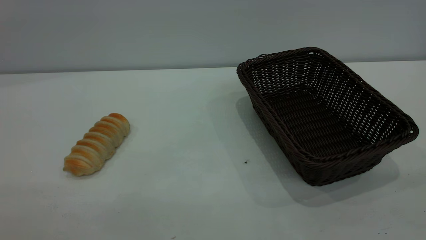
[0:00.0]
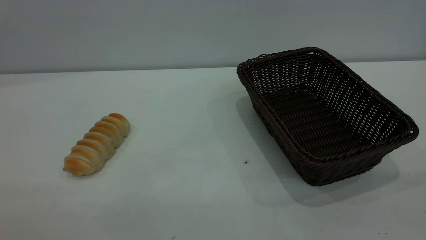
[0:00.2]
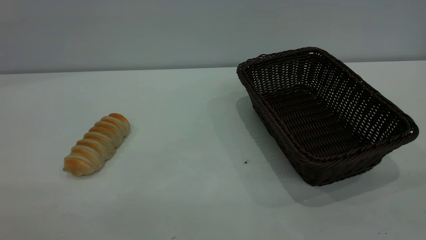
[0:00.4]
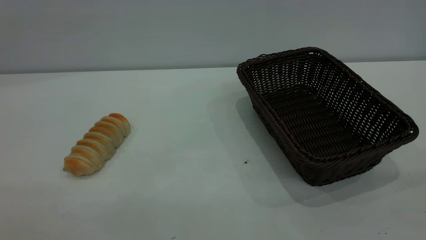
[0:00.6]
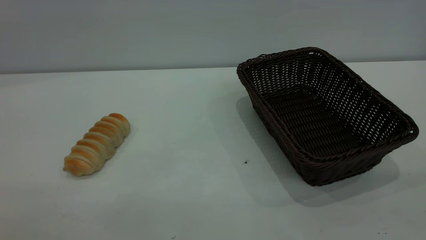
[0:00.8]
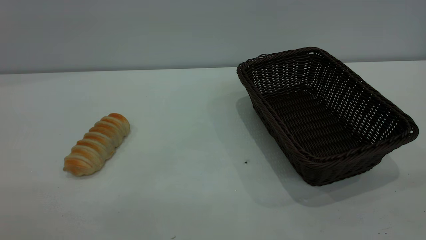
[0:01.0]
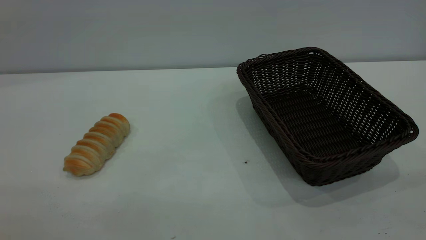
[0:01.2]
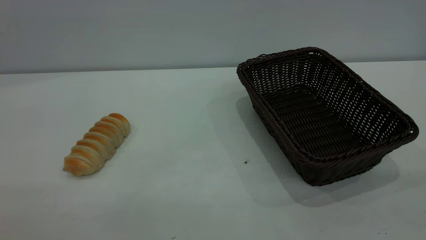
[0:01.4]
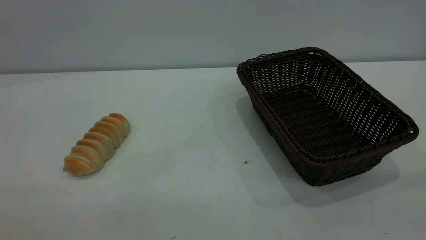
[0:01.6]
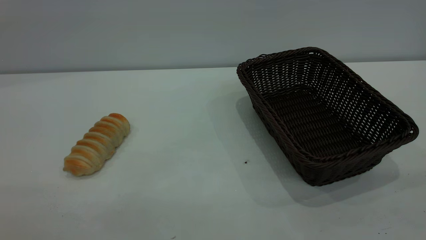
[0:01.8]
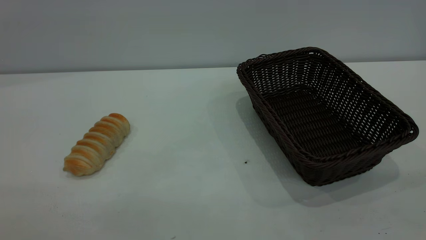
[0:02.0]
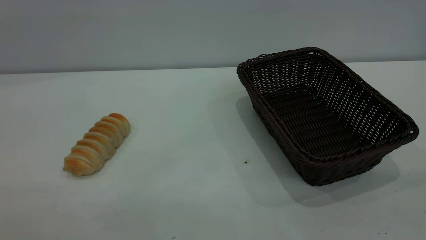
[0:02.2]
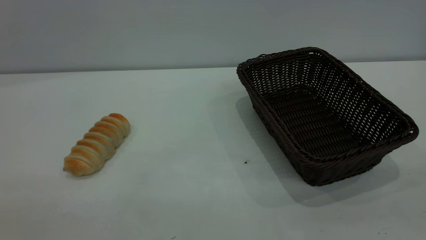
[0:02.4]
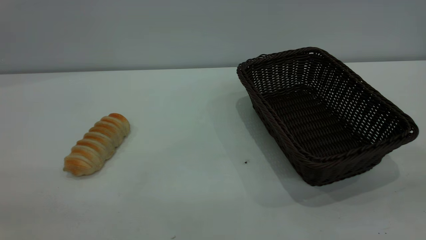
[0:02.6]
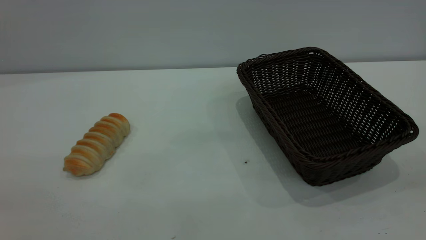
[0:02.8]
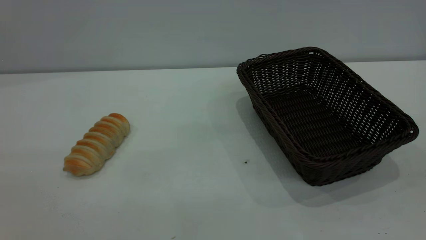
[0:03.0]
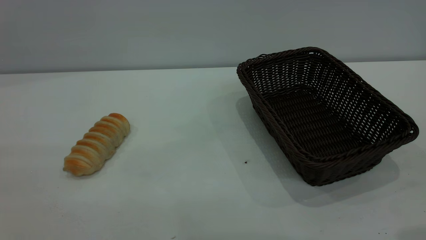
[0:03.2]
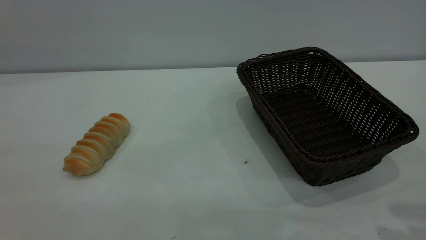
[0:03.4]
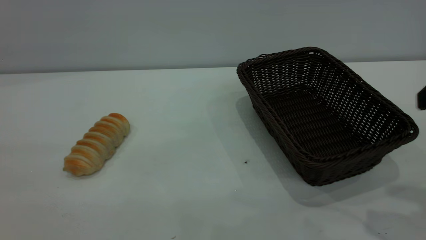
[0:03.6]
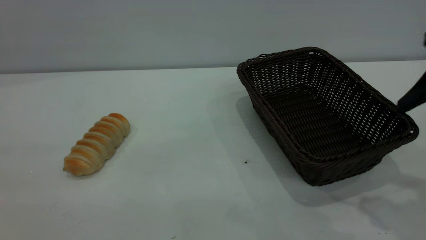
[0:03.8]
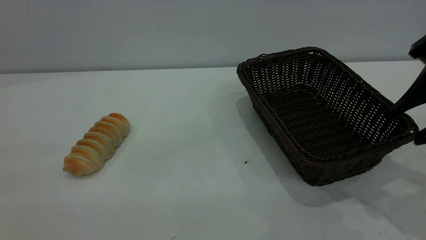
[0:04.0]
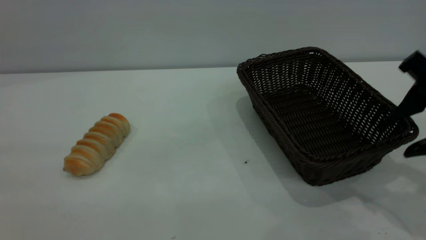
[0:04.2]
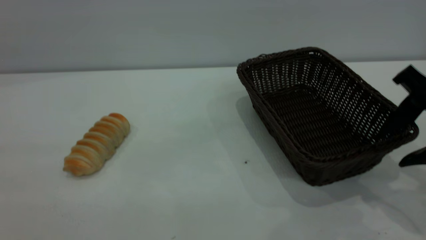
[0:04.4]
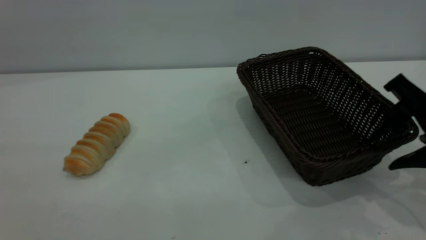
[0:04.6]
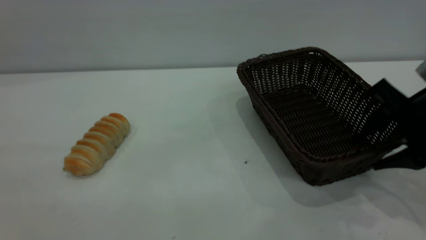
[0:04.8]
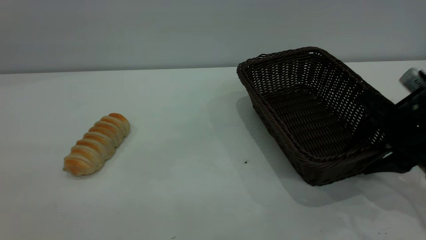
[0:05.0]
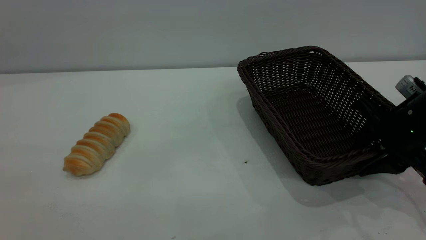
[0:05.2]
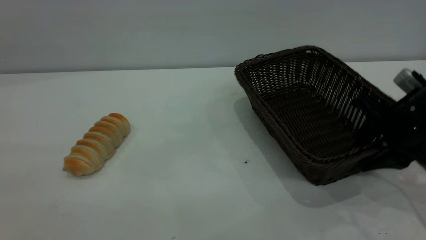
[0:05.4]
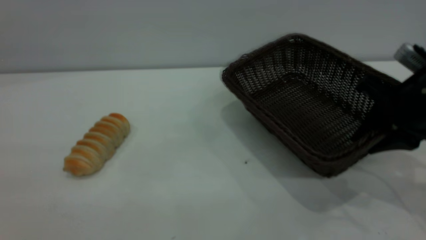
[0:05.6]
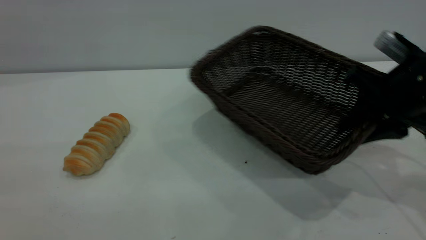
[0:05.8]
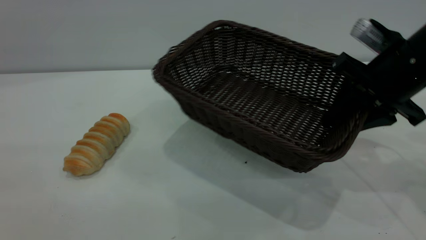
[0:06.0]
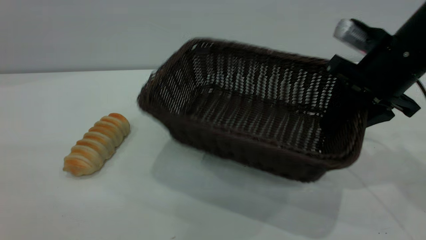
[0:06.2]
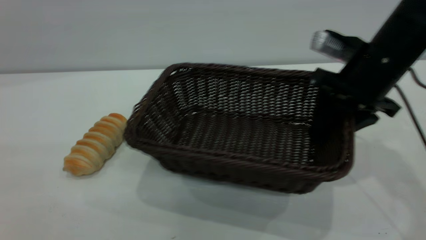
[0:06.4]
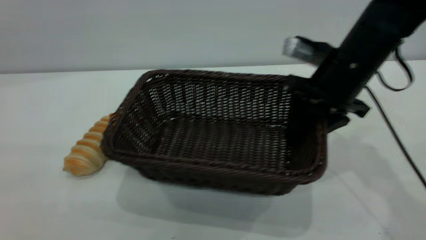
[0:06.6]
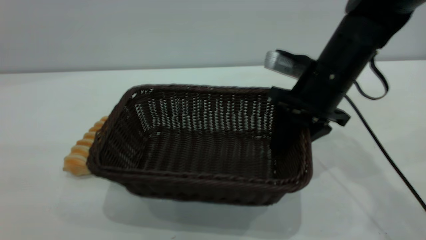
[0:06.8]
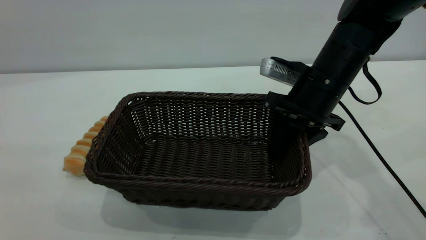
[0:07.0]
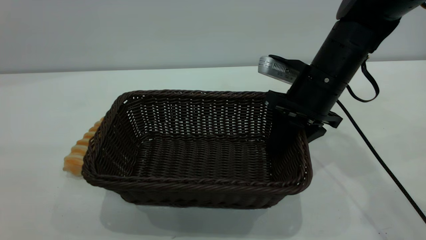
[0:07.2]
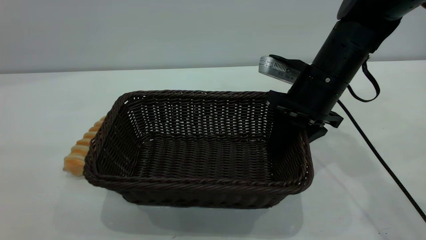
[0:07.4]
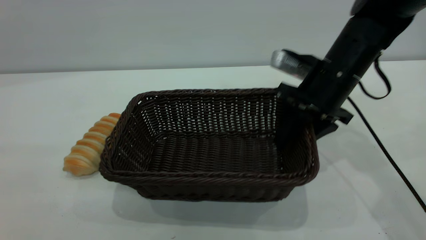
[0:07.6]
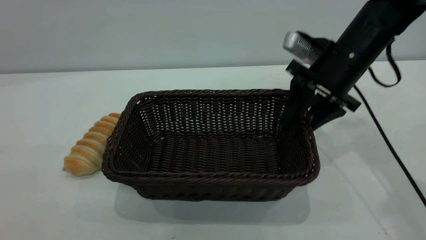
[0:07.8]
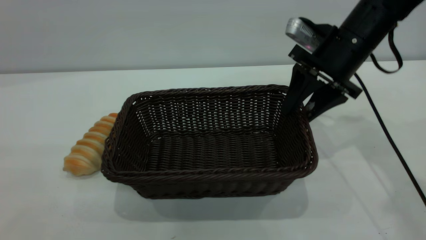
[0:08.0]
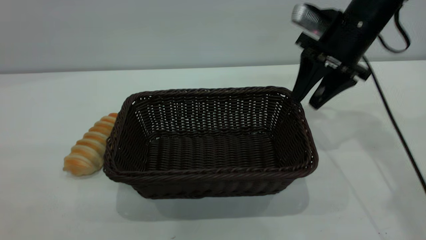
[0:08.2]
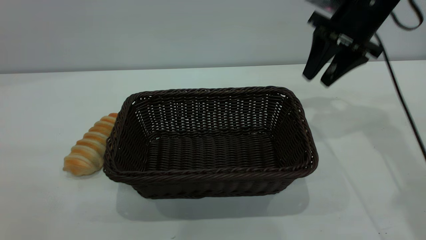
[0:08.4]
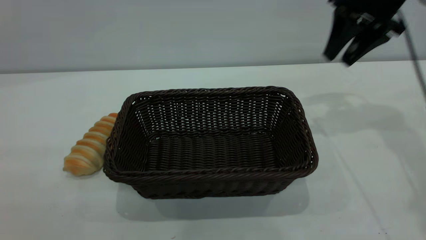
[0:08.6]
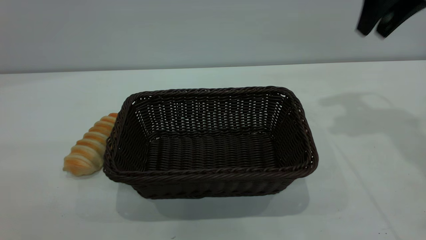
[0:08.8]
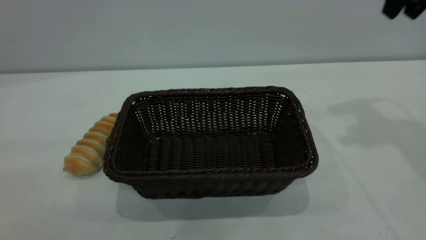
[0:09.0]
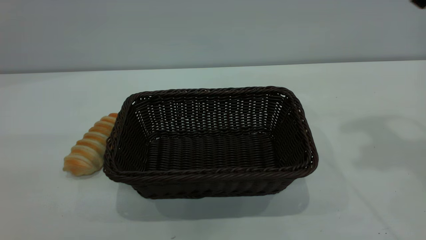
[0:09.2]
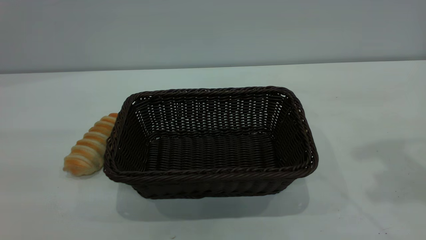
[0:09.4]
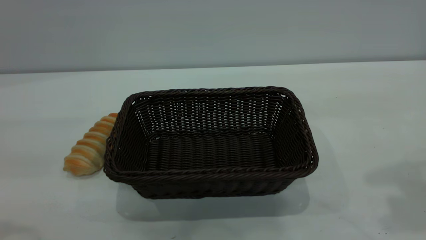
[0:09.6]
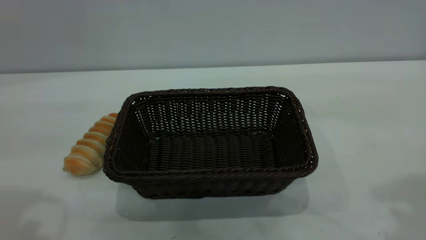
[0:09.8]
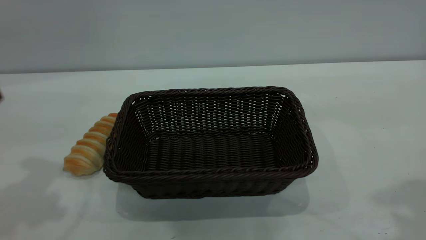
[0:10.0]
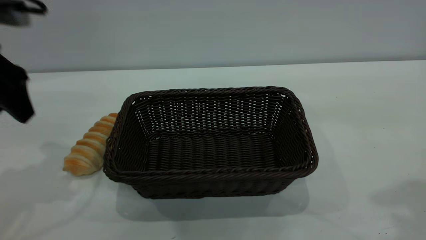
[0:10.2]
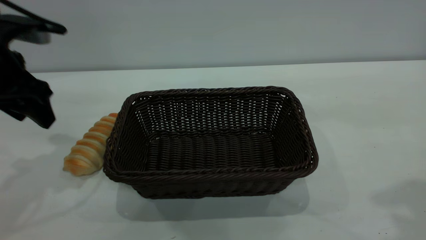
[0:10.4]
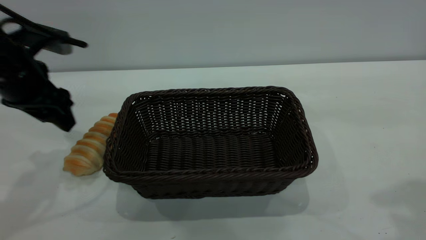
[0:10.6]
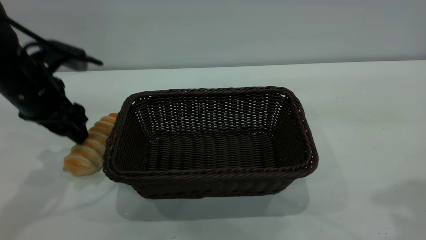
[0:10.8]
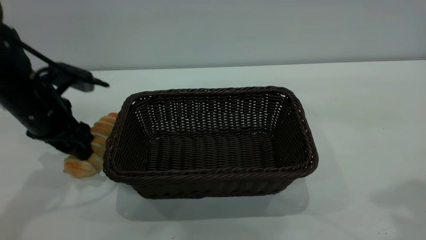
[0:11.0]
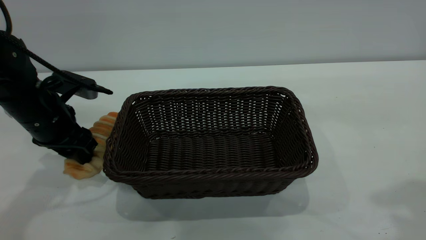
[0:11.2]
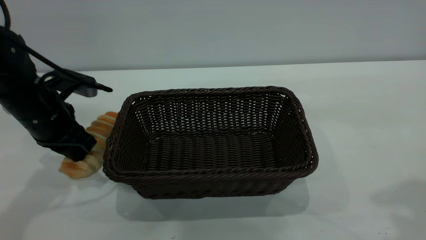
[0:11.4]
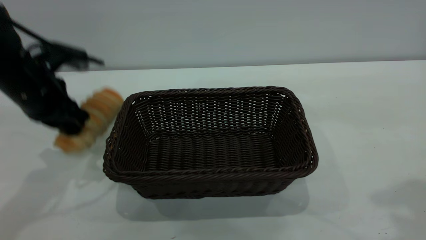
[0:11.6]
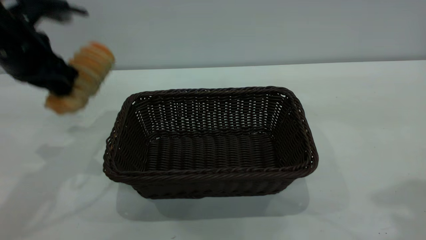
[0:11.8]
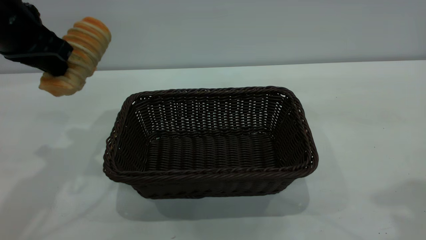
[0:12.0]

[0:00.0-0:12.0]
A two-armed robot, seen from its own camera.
Task of the whole recording: One hand grasps the black basket and places it in the middle of the table, while the other hand picks up the long bread and puts it into the black basket.
Step, 0:00.0 to 0:08.2: Move the basket to the center of view.
0:00.0 to 0:01.6: Both grippers stay about where they are.
0:03.0 to 0:04.4: The right gripper shifts roughly 20 cm downward and forward.
0:04.4 to 0:06.0: The right gripper moves forward, some 10 cm, and closes up.
0:06.0 to 0:07.6: The right gripper heads to the left and forward, covering some 10 cm, and opens its fingers.
0:07.6 to 0:09.0: The right gripper moves upward and to the right, approximately 25 cm.
0:09.0 to 0:10.4: The left gripper travels forward and downward by roughly 30 cm; the right gripper moves backward, roughly 20 cm.
0:10.4 to 0:12.0: The left gripper travels upward by approximately 5 cm, and closes its fingers.

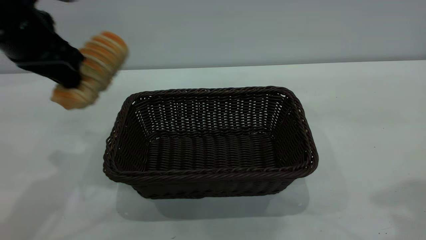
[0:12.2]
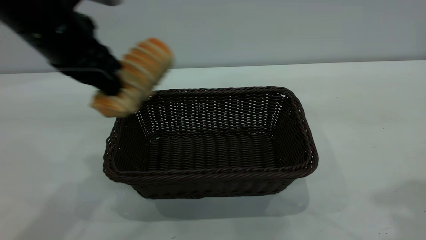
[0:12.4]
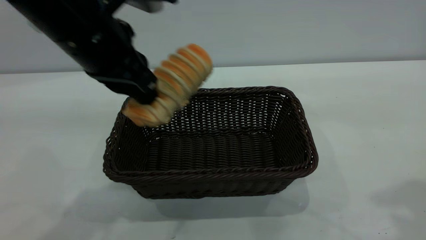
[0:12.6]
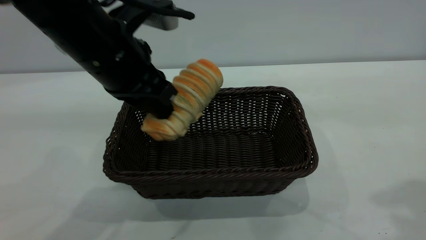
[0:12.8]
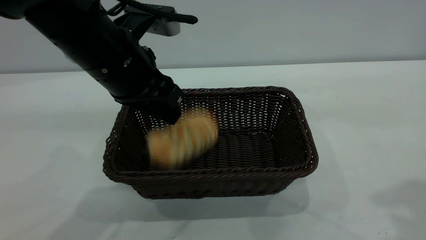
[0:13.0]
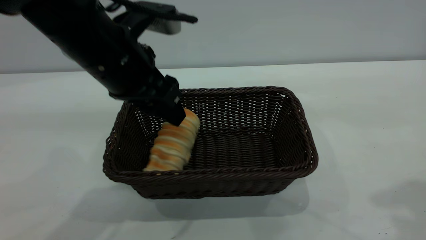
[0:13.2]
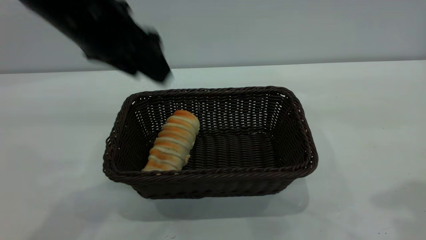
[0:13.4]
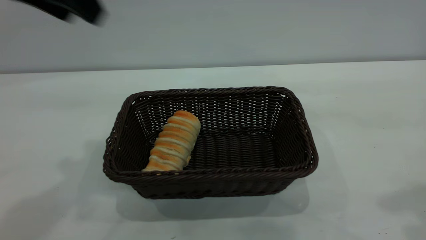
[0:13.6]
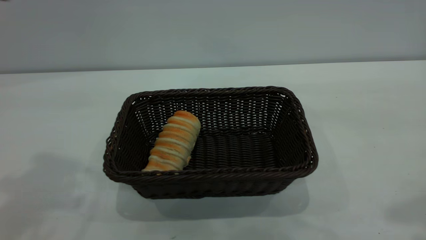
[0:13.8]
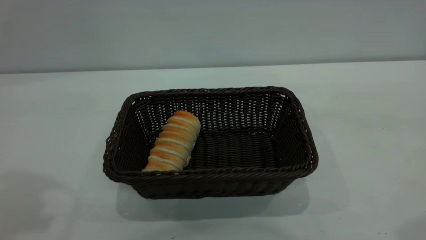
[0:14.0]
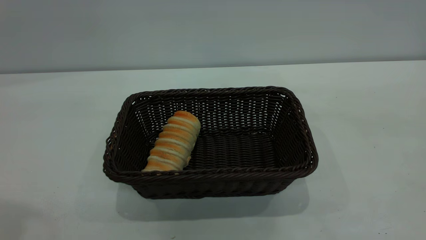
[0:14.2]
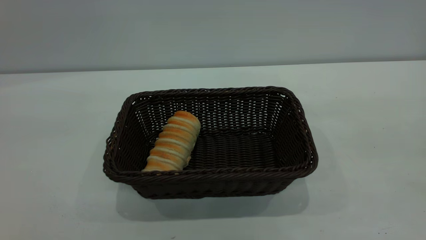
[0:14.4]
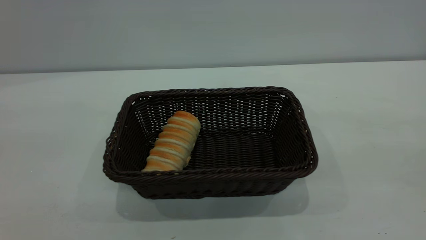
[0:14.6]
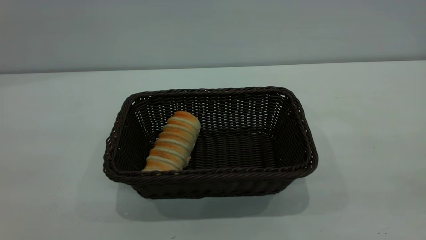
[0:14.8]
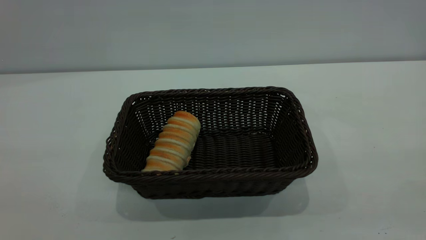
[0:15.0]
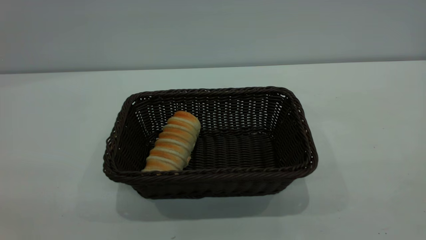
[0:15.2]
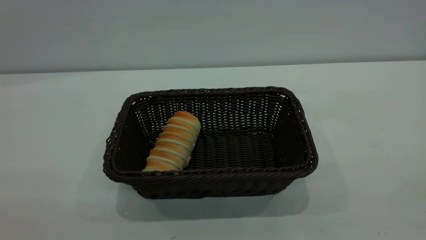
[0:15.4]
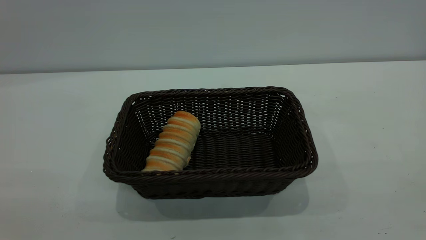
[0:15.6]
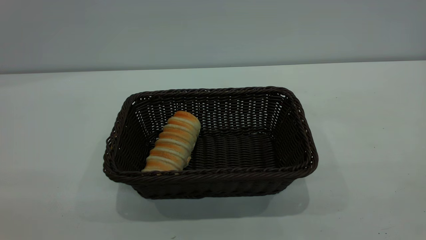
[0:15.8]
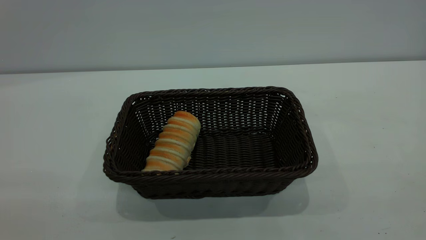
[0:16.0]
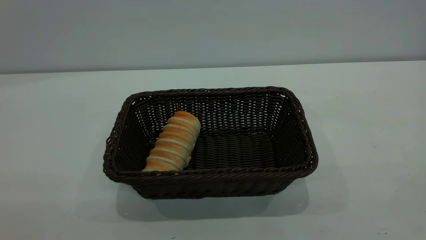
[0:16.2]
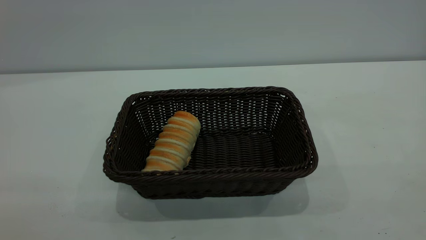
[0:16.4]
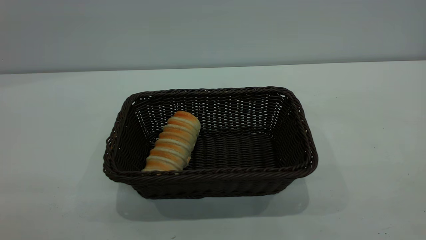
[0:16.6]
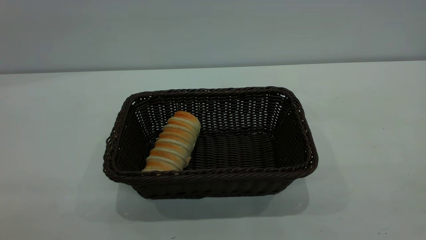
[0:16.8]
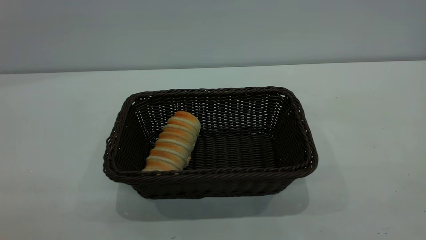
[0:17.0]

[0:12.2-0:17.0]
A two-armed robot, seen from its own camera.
Task of the whole recording: One hand grasps the black basket and places it in the middle of the table, while the other hand picks up the long bread and puts it into the black basket.
Step, 0:12.2 to 0:13.4: place the bread into the basket.
0:12.2 to 0:13.8: The left gripper moves upward and backward, about 15 cm, and opens.
